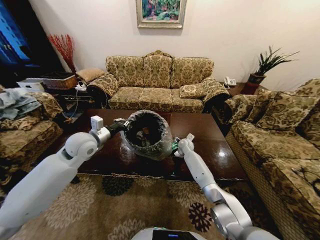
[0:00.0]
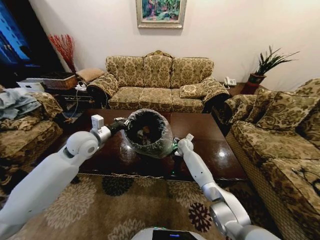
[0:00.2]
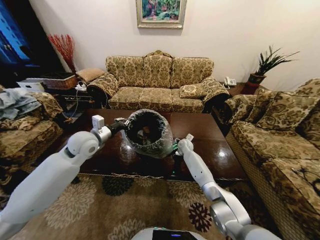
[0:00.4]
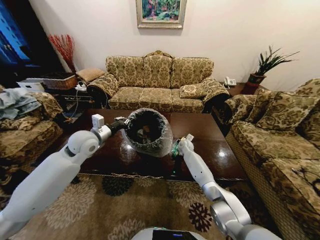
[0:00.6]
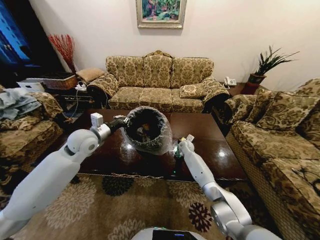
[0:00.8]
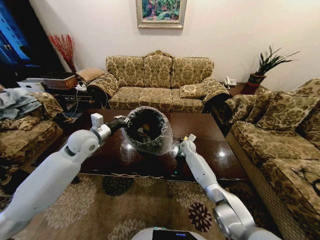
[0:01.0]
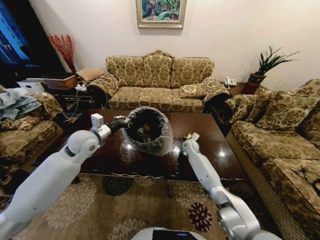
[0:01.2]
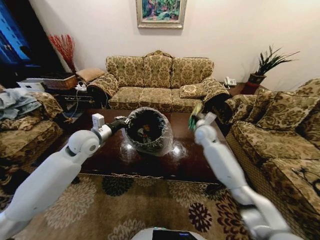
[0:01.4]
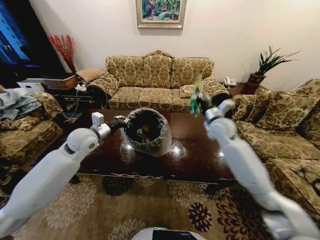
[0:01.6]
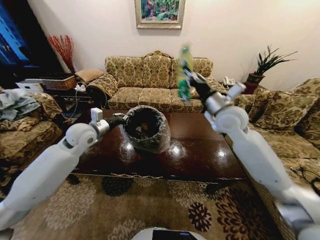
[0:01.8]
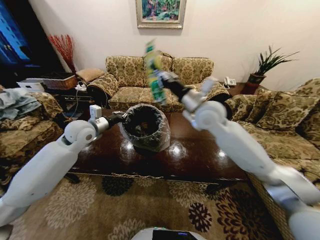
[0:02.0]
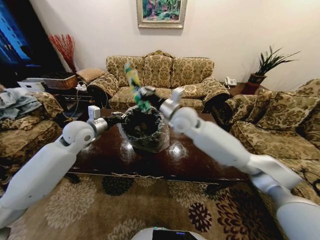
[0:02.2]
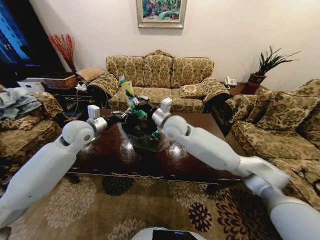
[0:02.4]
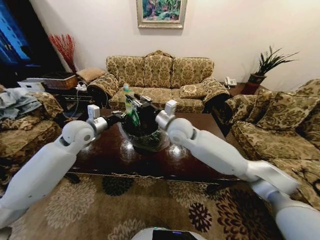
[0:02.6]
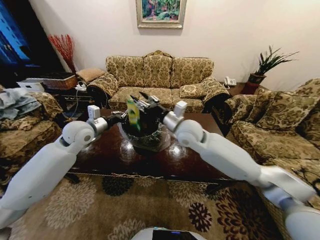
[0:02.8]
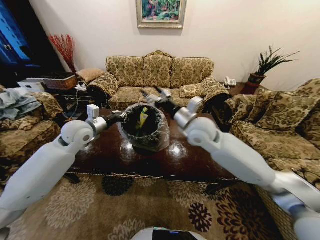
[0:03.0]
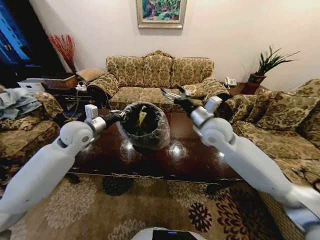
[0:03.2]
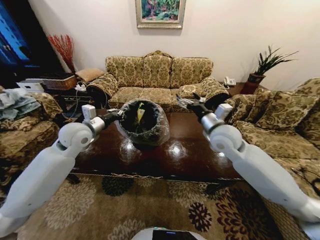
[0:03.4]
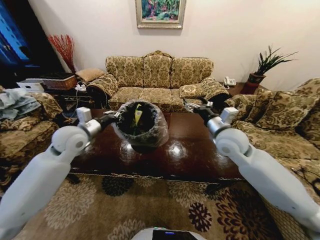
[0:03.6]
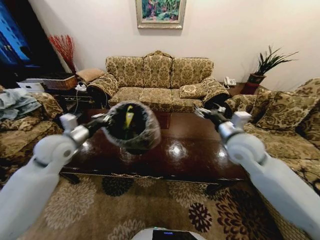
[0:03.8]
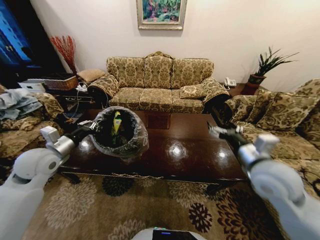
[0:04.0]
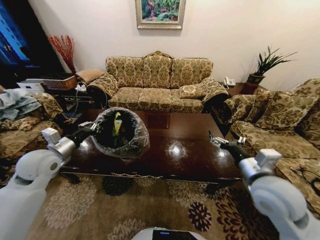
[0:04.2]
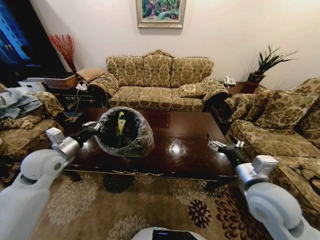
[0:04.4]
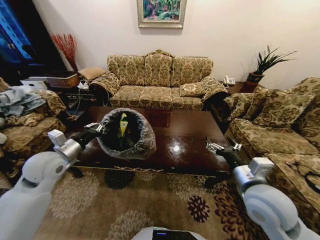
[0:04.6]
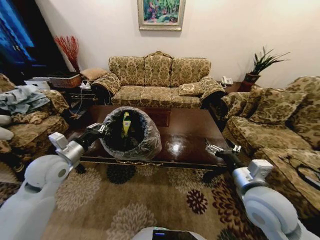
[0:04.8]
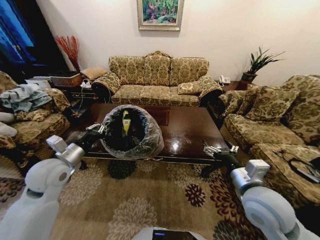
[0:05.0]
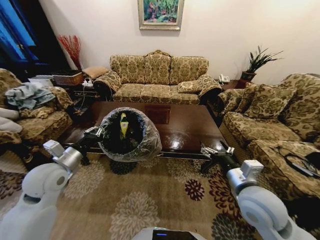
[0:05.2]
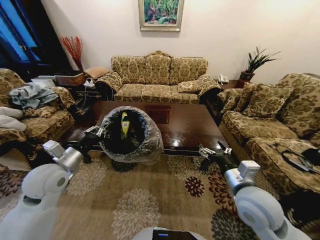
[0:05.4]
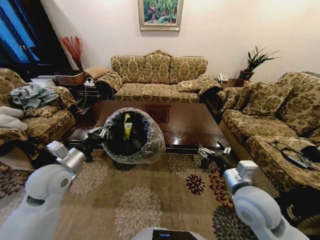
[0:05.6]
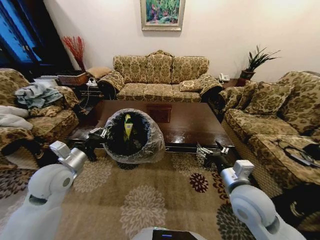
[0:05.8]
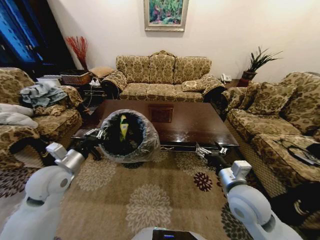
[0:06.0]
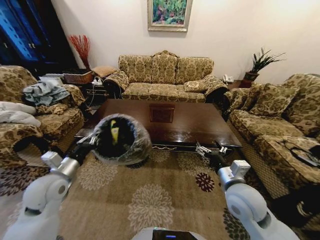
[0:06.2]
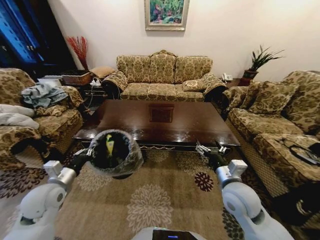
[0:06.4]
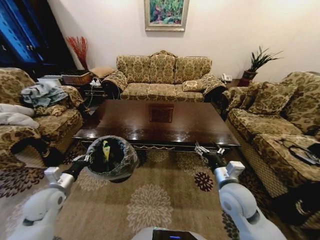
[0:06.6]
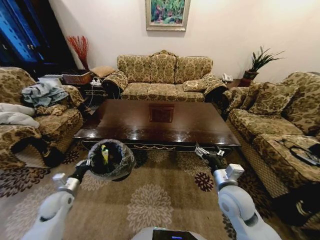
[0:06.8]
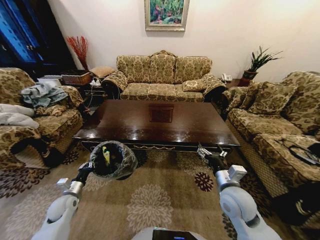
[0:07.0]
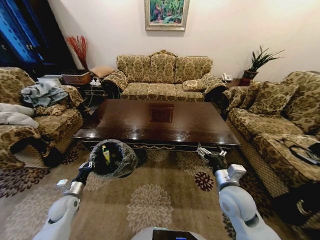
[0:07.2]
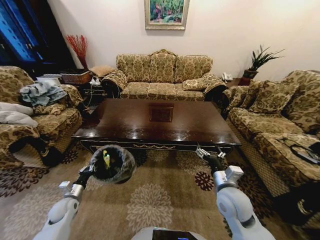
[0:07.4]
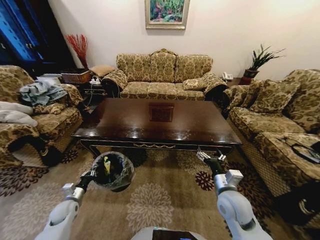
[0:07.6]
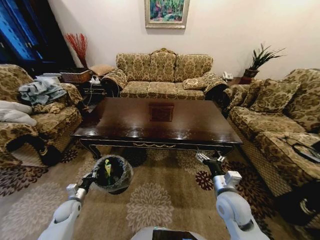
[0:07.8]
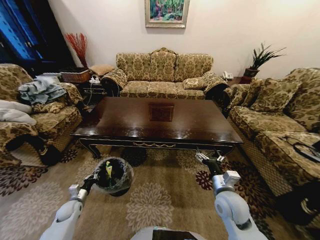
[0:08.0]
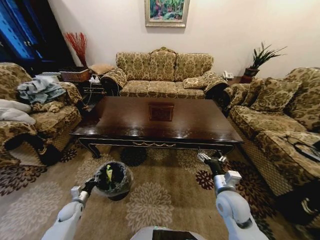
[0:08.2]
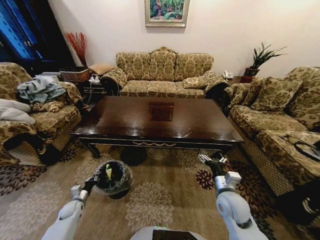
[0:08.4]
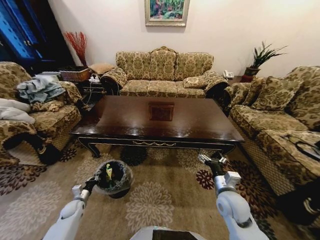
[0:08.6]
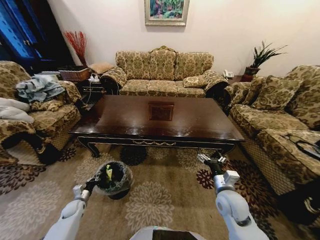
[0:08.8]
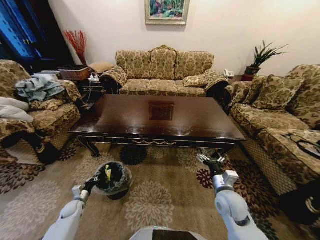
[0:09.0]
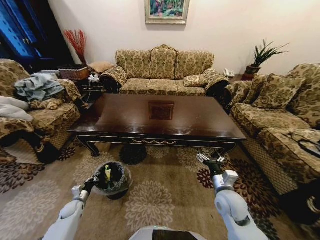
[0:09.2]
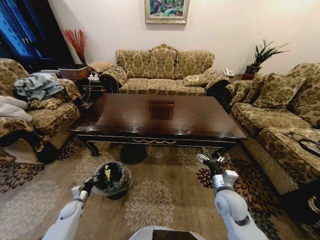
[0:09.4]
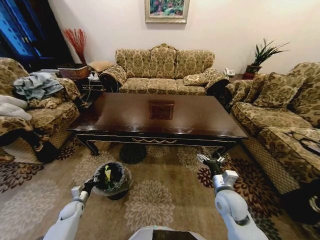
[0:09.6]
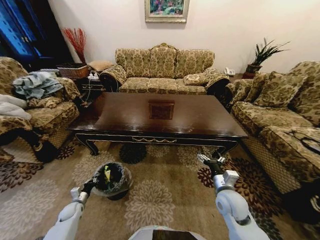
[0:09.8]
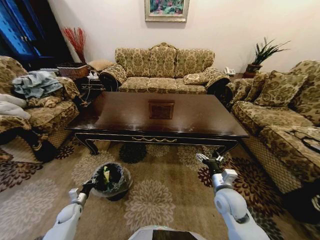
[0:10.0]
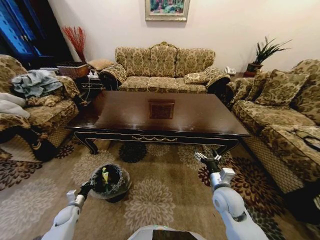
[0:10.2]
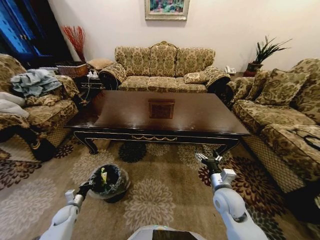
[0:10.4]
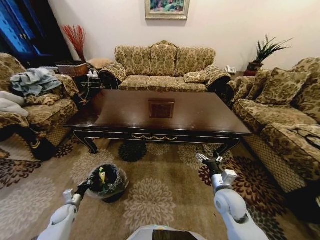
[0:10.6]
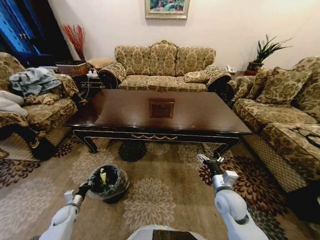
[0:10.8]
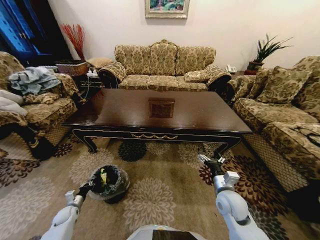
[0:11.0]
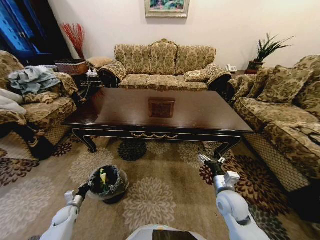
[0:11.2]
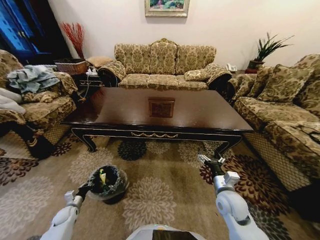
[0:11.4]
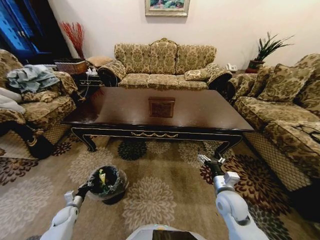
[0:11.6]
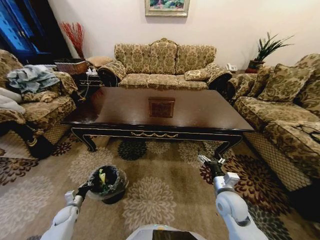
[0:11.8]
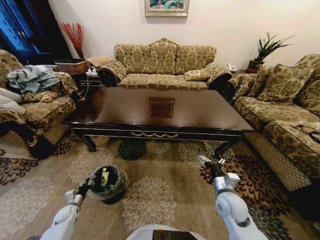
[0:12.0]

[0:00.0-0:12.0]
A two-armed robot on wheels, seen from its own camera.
Task of the whole recording: Move to the front of the table and place the trash on the table into the trash bin.
0:00.0 to 0:01.6: The right gripper shifts about 25 cm upward and to the right, and closes.
0:01.6 to 0:03.0: The right gripper shifts approximately 15 cm to the left and backward, and opens up.
0:03.0 to 0:04.4: The right gripper shifts about 25 cm backward, to the right and downward, while the left gripper moves backward and to the left, approximately 10 cm.
0:04.4 to 0:06.0: The left gripper changes place by roughly 5 cm. Meanwhile the right gripper changes place by about 5 cm.
0:06.0 to 0:07.6: The left gripper goes some 25 cm downward; the right gripper travels downward by some 5 cm.
0:07.6 to 0:09.0: The left gripper moves downward, roughly 10 cm.

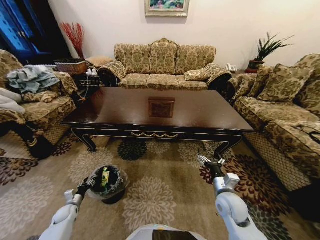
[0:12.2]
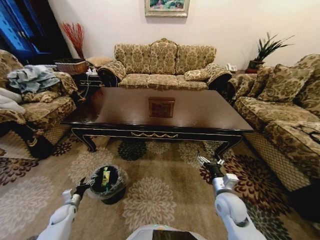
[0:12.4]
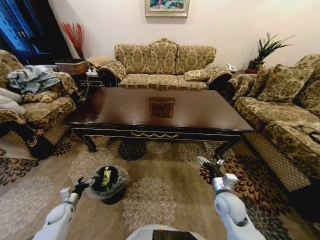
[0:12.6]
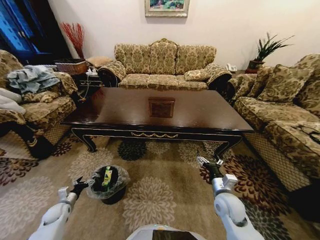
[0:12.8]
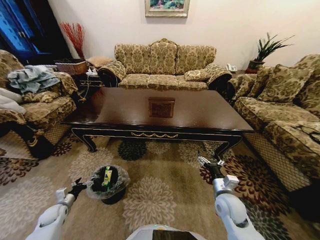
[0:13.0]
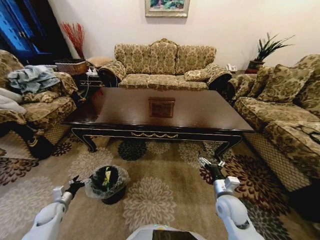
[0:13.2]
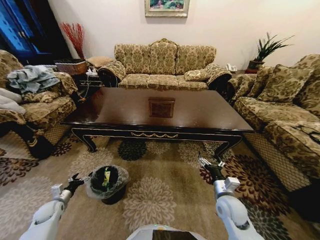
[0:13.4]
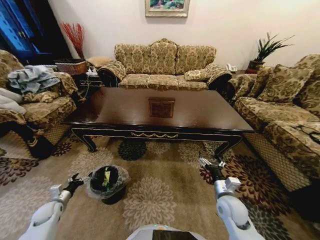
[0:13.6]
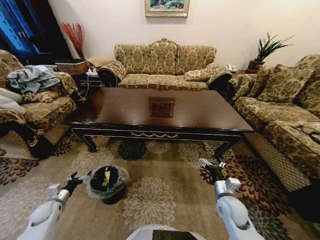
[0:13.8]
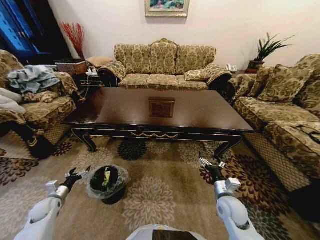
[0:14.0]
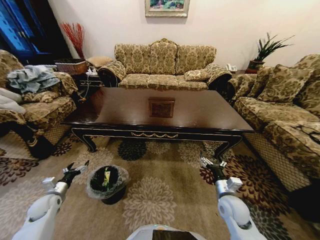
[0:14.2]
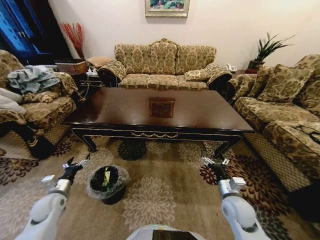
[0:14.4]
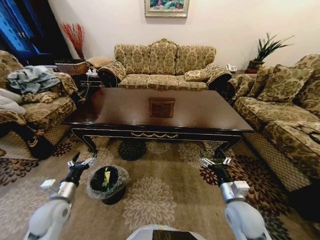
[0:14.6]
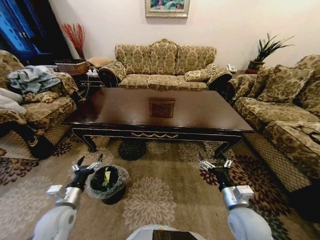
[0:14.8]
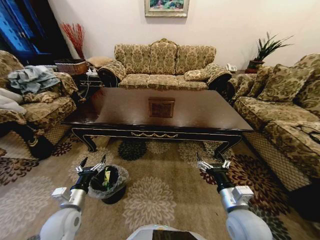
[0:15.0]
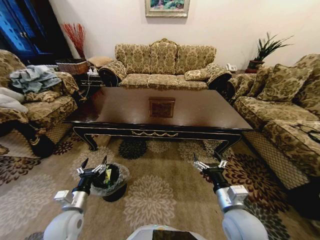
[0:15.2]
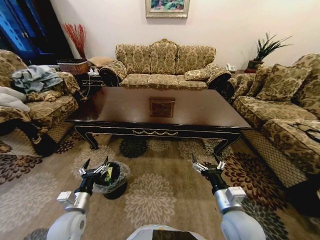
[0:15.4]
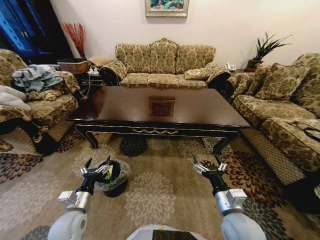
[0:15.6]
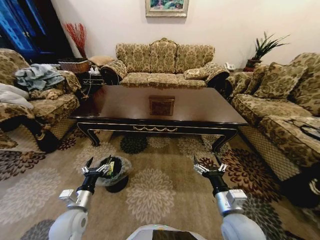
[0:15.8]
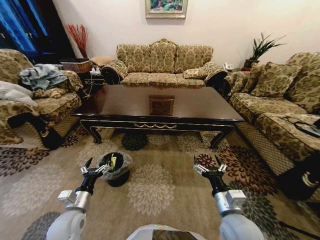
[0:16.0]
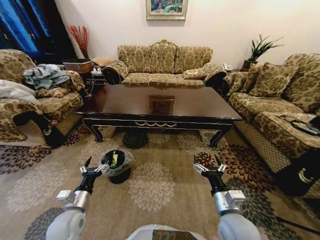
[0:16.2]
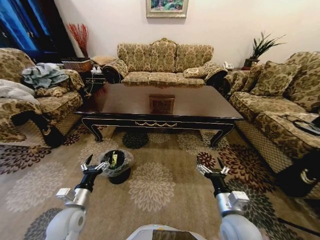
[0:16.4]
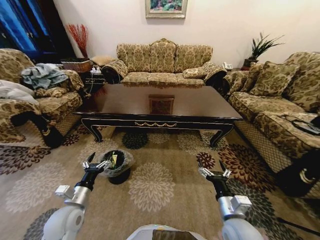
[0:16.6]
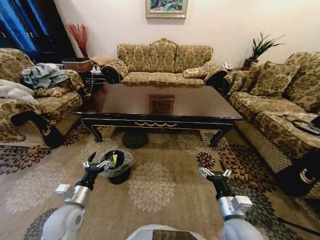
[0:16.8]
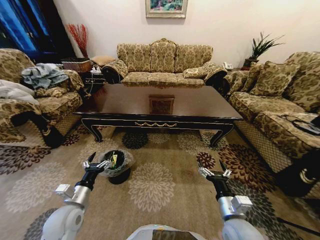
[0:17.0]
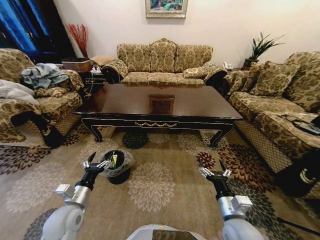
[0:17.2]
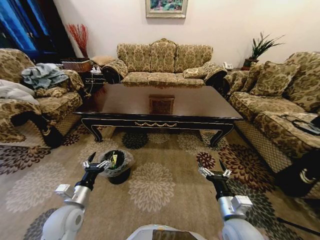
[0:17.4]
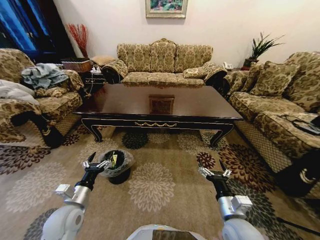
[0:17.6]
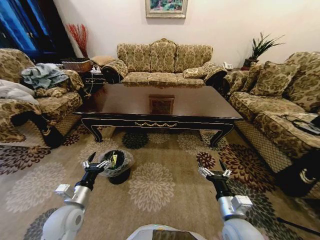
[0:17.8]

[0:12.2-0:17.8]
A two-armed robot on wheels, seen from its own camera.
Task of the whole recording: Move to the front of the table and place the trash on the table into the trash bin.
0:12.2 to 0:13.6: The left gripper goes approximately 10 cm upward, and opens up.
0:13.6 to 0:15.0: The left gripper goes roughly 25 cm to the right and upward, while the right gripper moves upward and backward, about 10 cm.
0:16.4 to 0:17.8: The grippers move only a little.

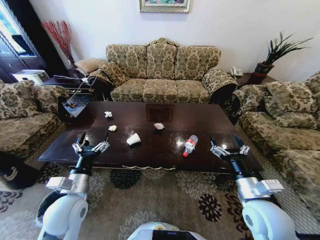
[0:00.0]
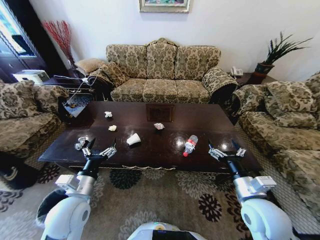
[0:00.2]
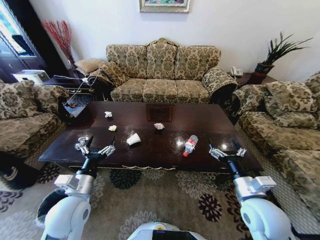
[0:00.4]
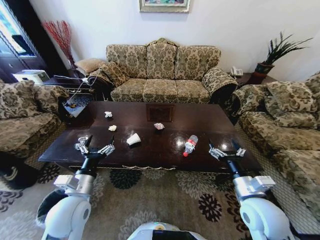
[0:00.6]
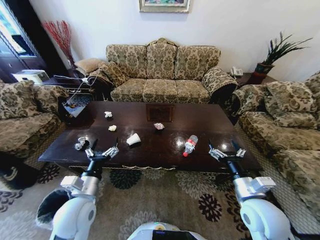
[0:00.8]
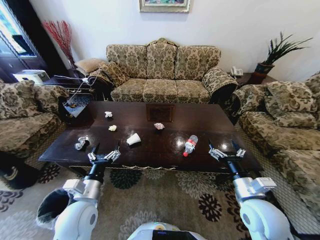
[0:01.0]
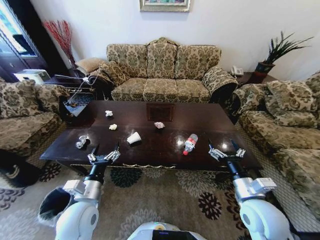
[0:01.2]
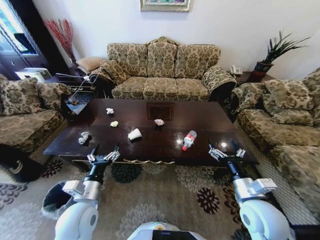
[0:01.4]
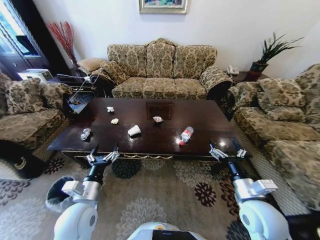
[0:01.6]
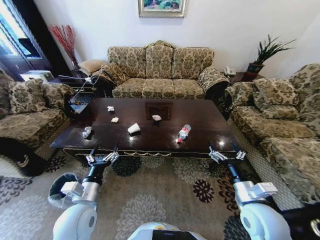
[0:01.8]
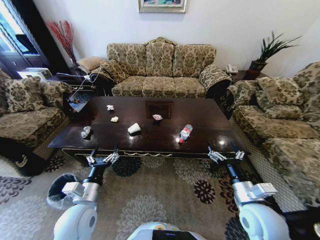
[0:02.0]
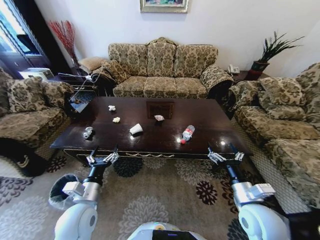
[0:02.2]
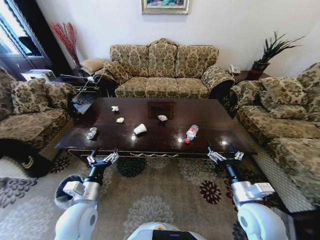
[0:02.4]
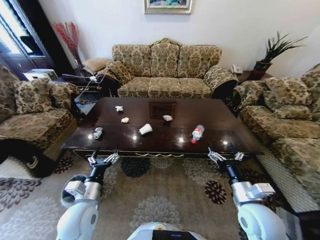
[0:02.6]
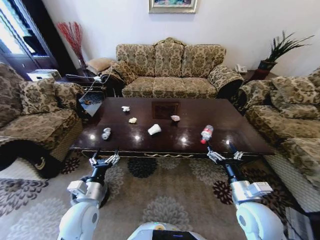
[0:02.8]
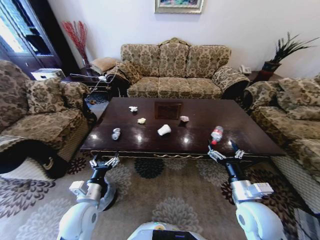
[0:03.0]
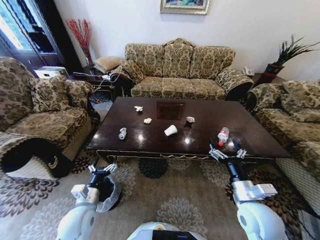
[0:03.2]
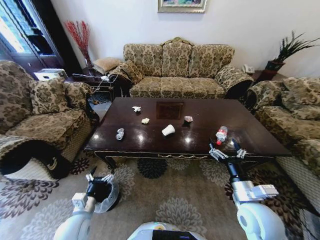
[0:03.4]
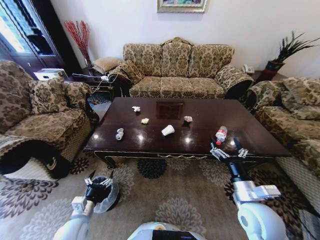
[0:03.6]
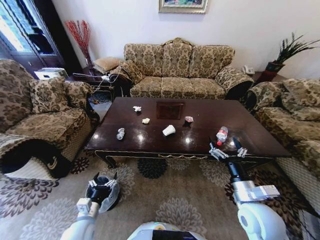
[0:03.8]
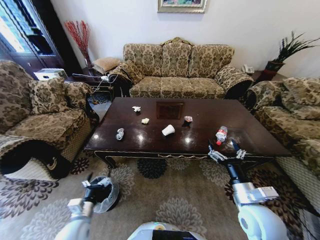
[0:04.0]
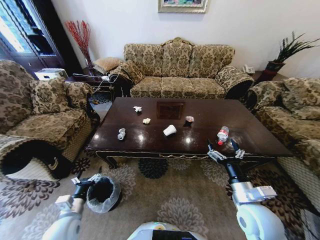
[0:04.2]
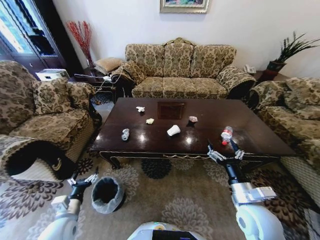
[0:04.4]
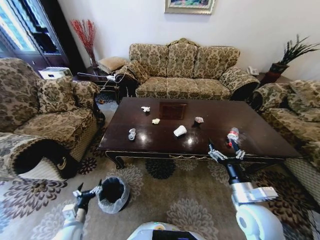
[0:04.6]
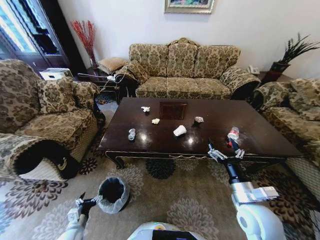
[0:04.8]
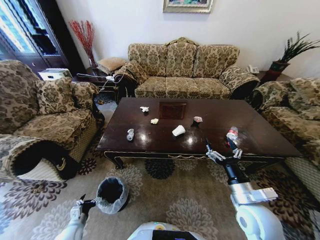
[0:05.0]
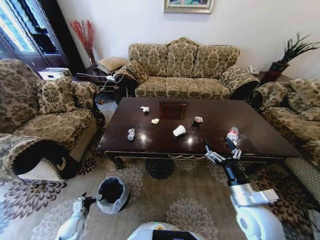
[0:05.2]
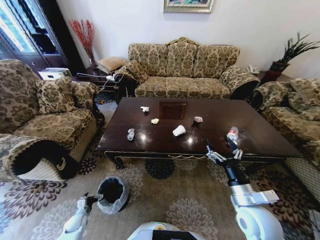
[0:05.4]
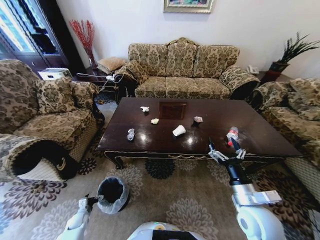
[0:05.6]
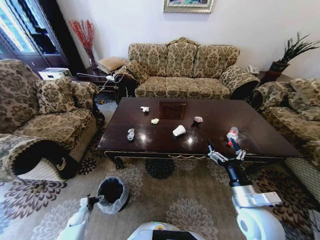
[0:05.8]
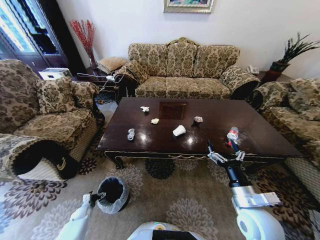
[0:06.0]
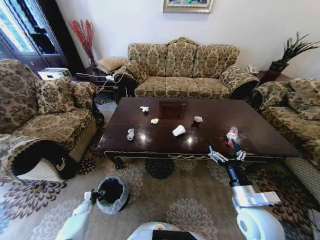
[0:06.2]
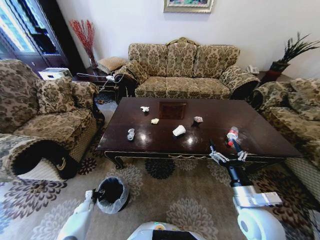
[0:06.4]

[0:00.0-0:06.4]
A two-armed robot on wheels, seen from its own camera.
Task of the whole recording: Move to the front of the table and place the trash on the table into the trash bin.
0:01.6 to 0:03.2: The left gripper travels downward by about 5 cm.
0:03.2 to 0:04.8: The left gripper travels downward and to the left by roughly 20 cm.
0:04.8 to 0:06.4: The left gripper shifts approximately 25 cm downward, forward and to the left.
